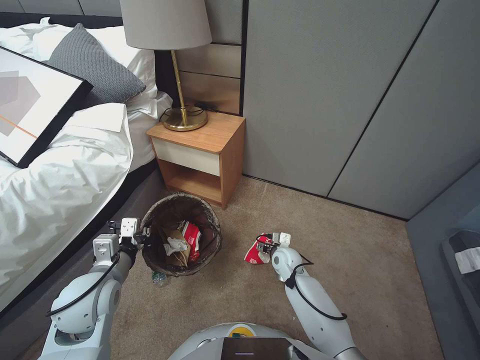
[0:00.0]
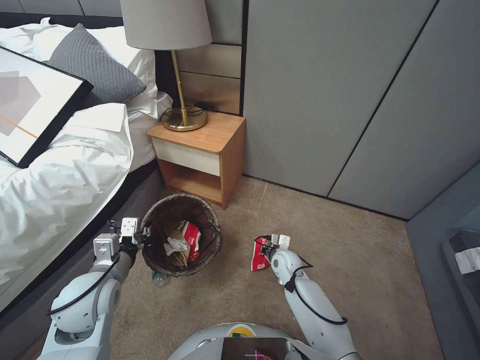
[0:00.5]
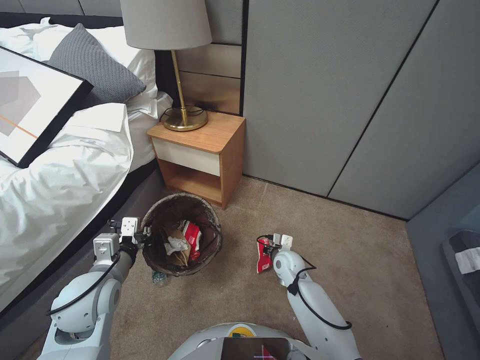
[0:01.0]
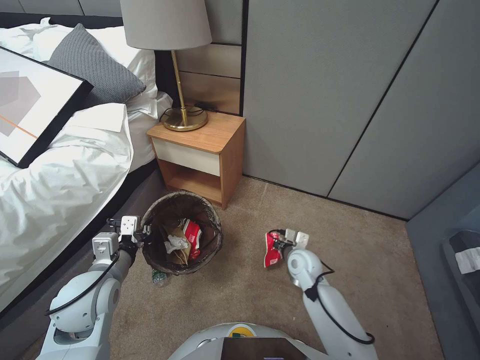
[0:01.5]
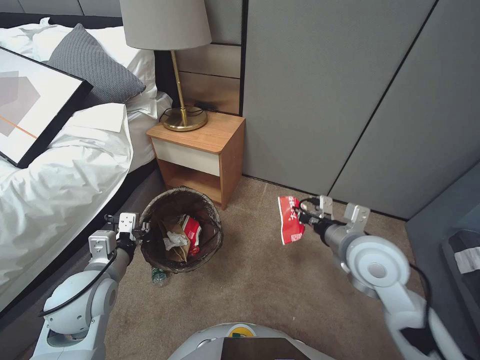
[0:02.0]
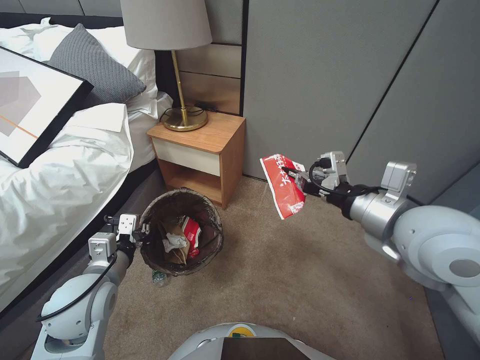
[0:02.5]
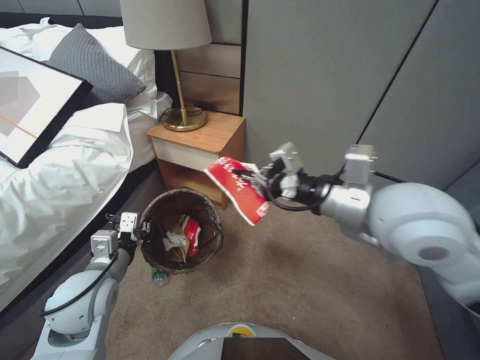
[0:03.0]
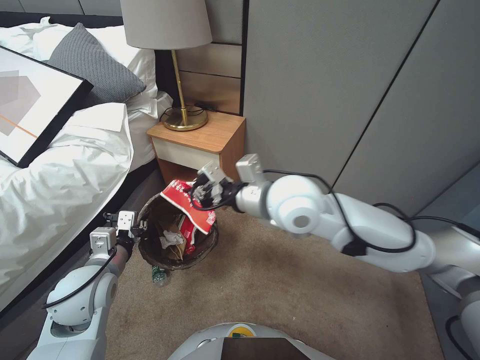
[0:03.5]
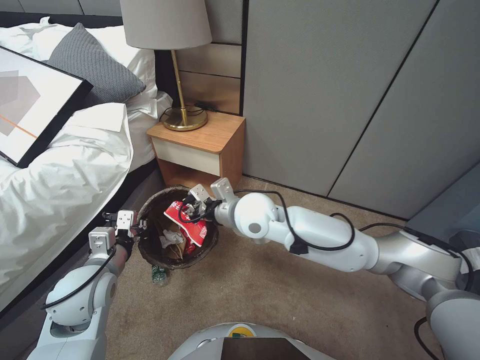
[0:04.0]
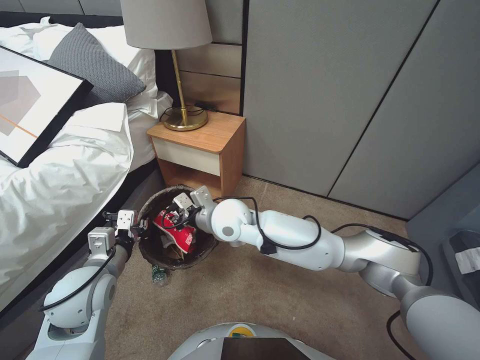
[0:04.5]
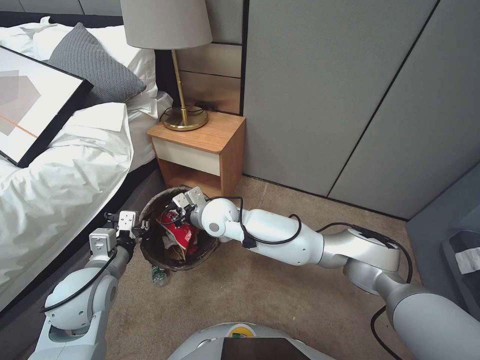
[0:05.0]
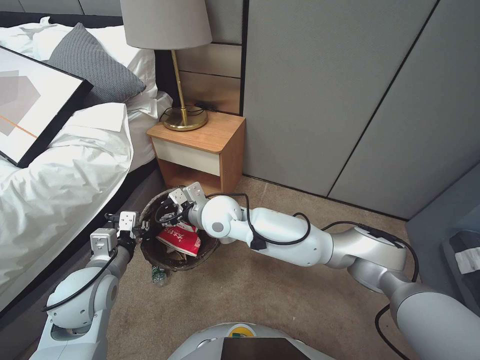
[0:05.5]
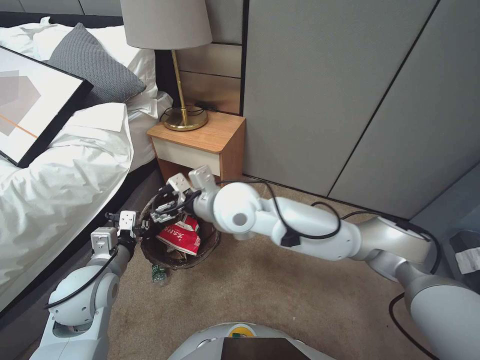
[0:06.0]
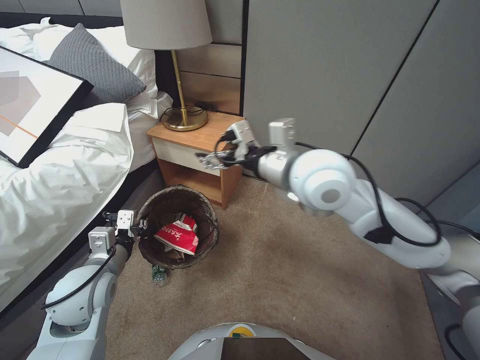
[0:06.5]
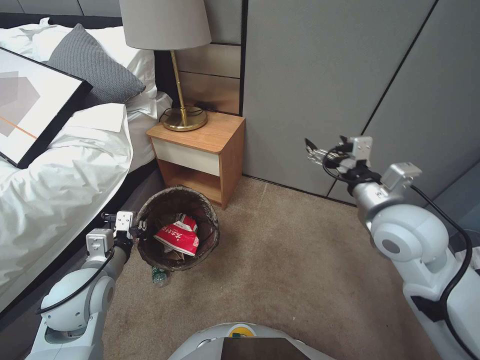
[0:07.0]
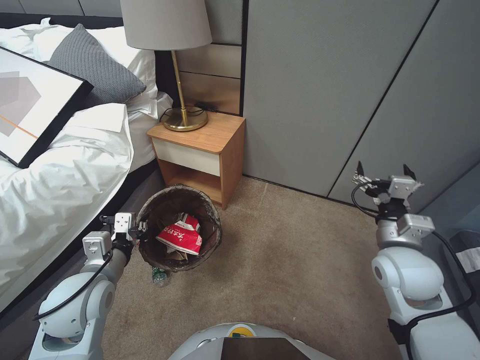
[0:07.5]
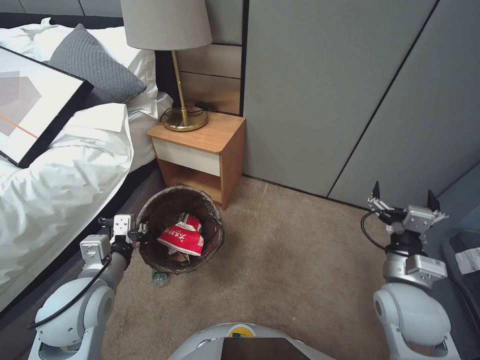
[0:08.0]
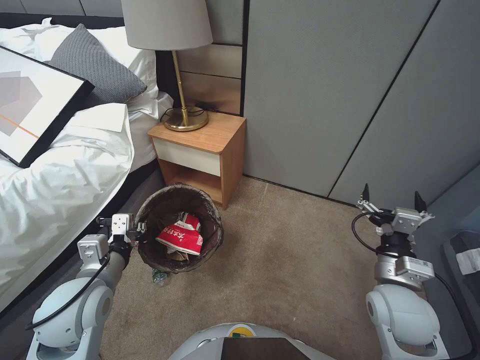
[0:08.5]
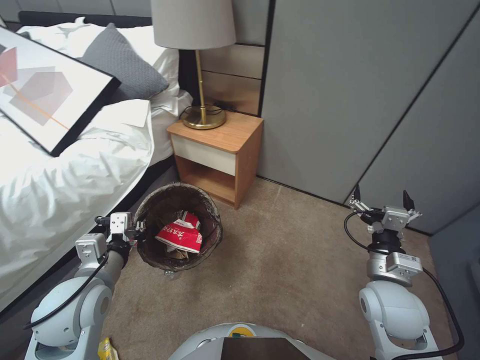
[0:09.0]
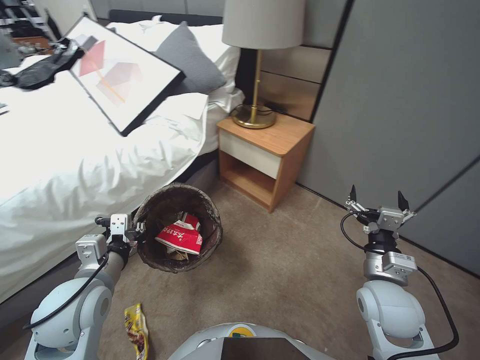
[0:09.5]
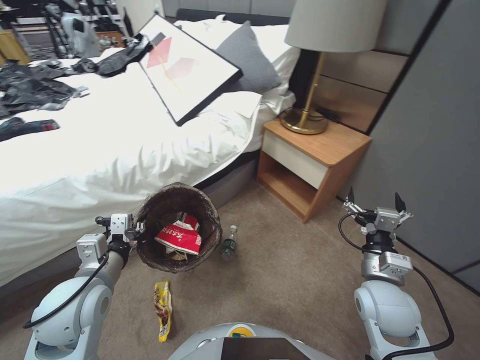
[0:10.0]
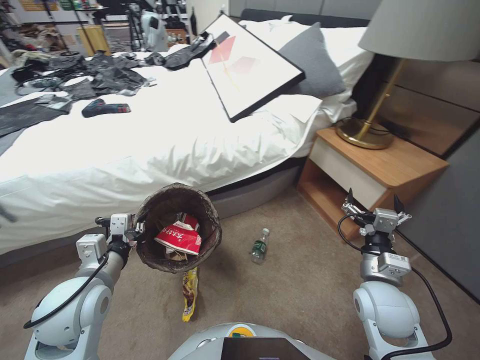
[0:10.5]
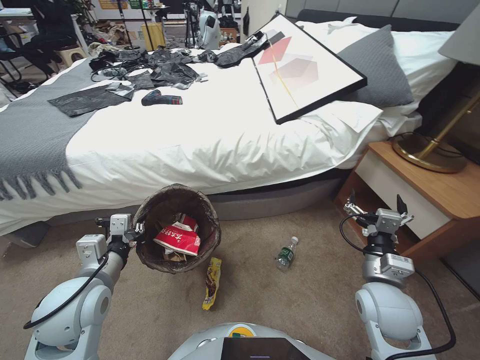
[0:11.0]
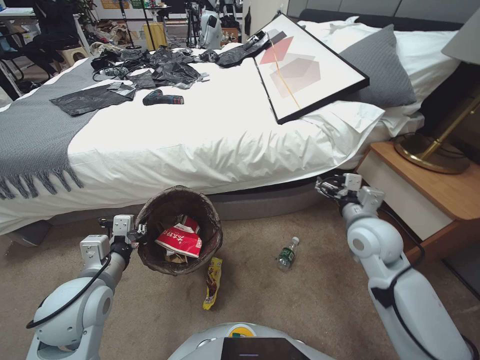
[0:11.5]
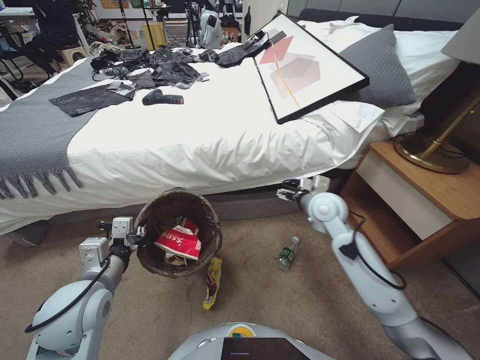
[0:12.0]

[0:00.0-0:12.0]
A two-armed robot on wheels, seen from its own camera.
Task of the whole recording: Pick up the trash bin, then pick up the garbage from the floor and place it into the trash bin.
0:00.0 to 0:02.0: The right gripper travels upward by about 25 cm, and closes up.
0:02.0 to 0:04.0: The right gripper is displaced to the left by roughly 20 cm.
0:04.0 to 0:06.0: The right gripper is displaced to the left by some 5 cm, reaches approximately 5 cm downward, then returns, and opens up.
0:06.0 to 0:08.0: The right gripper shifts about 35 cm to the right and backward.
0:10.0 to 0:12.0: The right gripper moves forward, approximately 20 cm.

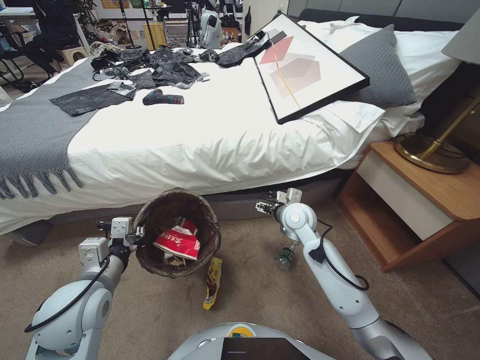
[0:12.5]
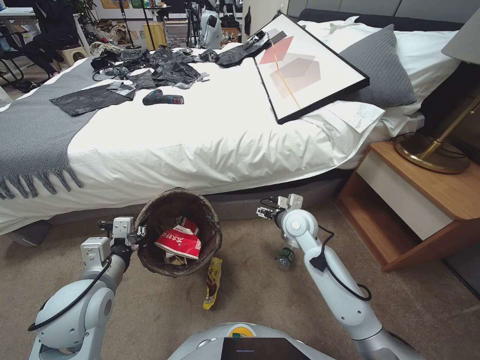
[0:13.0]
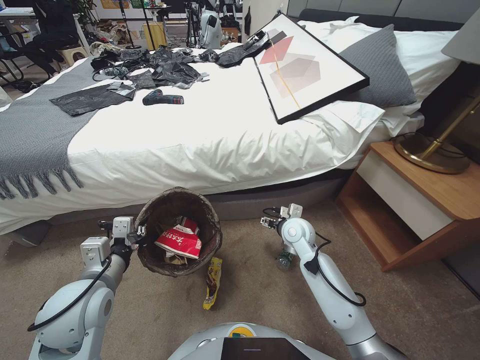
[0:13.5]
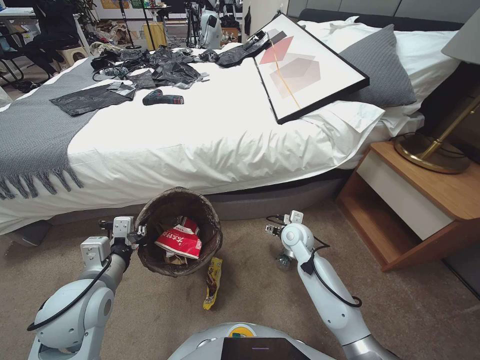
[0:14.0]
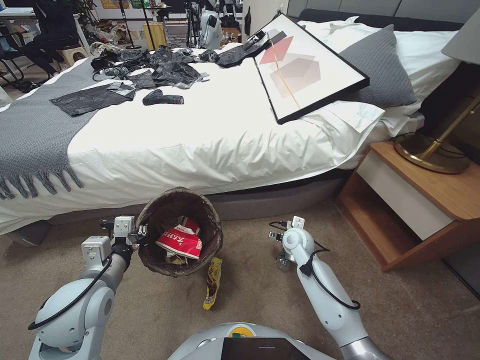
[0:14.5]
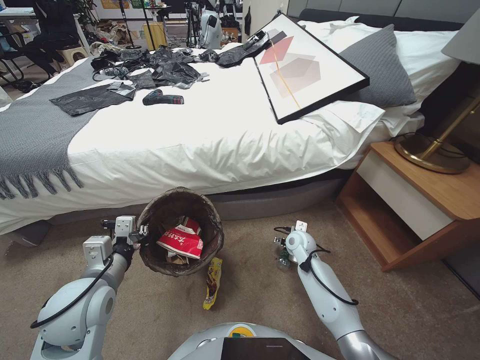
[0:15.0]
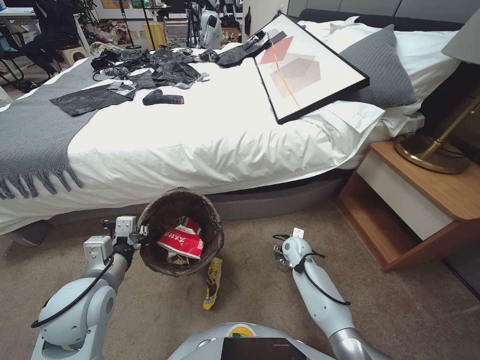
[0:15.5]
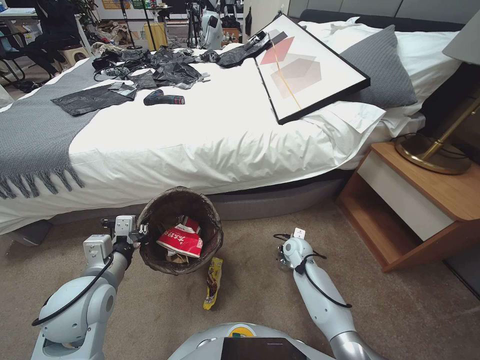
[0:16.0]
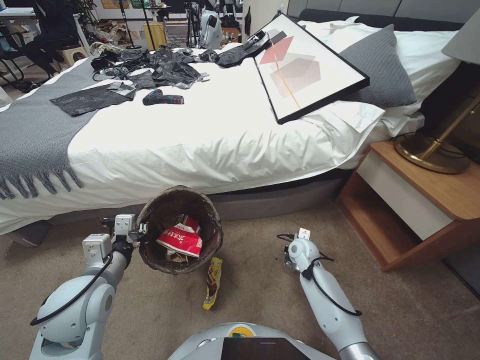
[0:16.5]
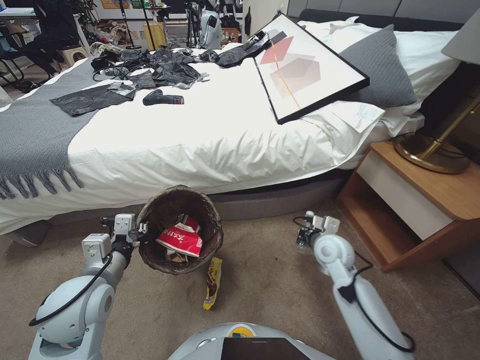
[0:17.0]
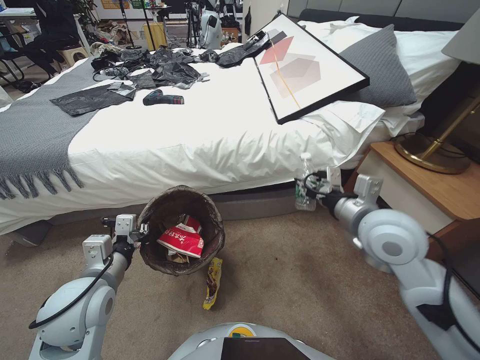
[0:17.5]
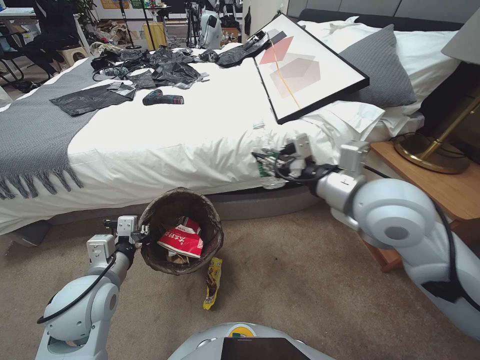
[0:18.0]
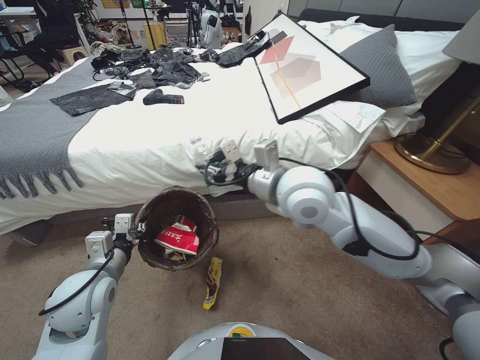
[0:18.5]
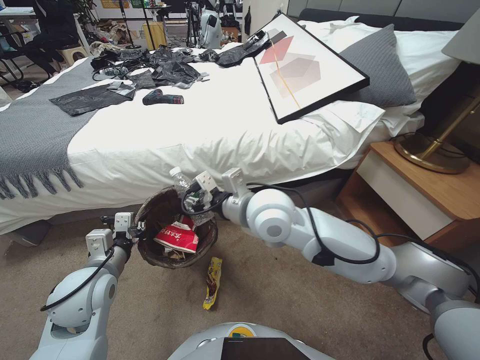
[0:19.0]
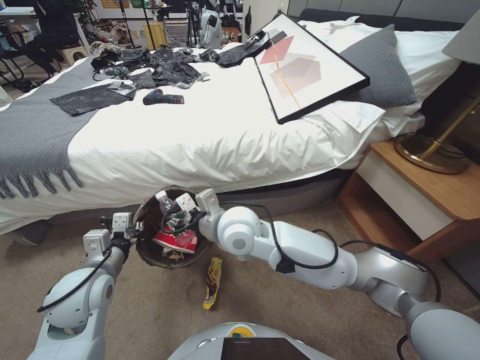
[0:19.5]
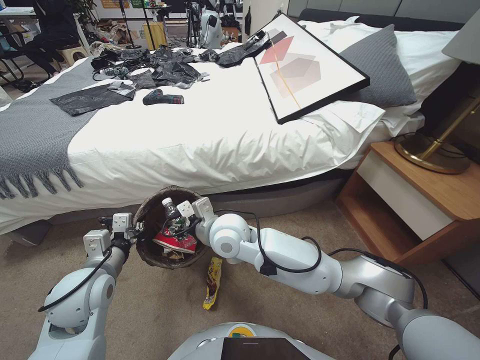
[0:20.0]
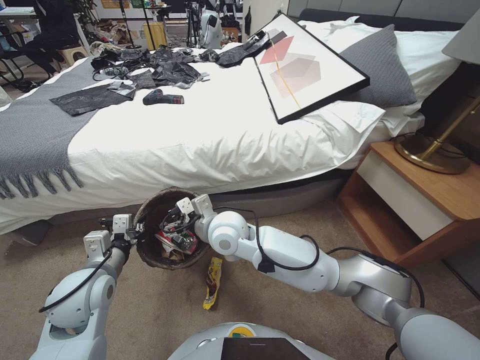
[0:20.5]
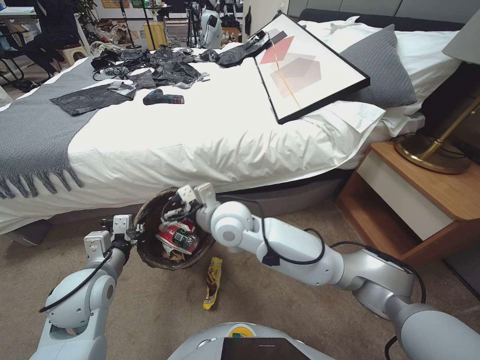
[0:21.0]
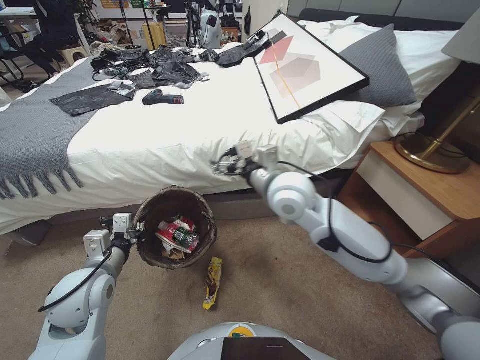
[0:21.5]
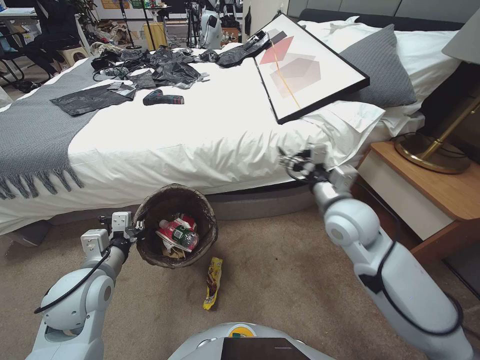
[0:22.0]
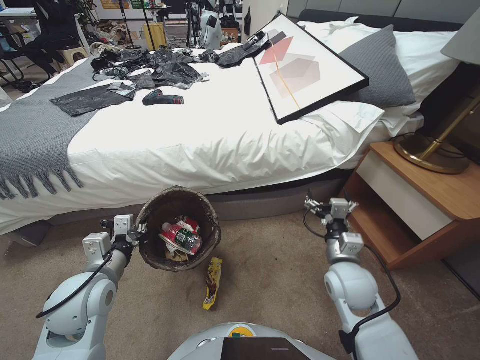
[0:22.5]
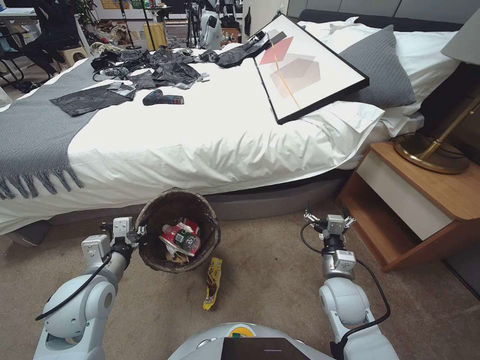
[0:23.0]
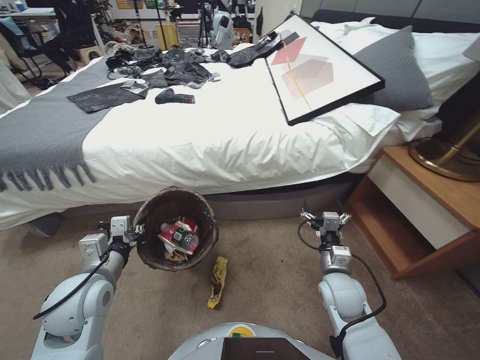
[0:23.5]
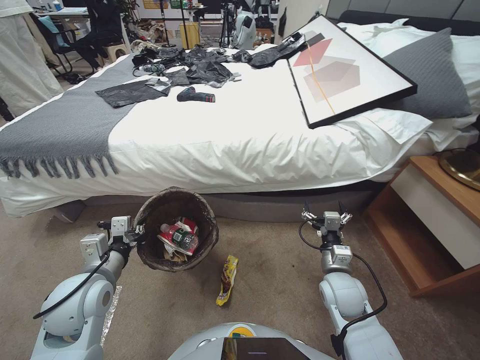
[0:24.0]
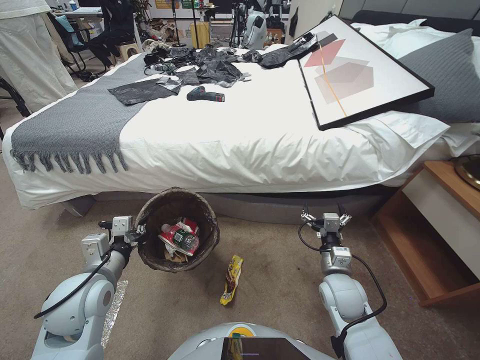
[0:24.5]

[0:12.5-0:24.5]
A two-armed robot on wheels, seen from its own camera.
Task of the whole recording: Pick up the trash bin, then pick up the garbage from the floor and place it into the trash bin.
0:12.5 to 0:14.5: The right gripper travels downward by some 10 cm.
0:14.5 to 0:16.5: The right gripper shifts roughly 5 cm downward, and closes its fingers.
0:16.5 to 0:18.5: The right gripper goes roughly 40 cm upward.
0:18.5 to 0:20.5: The right gripper is displaced downward and to the left by approximately 20 cm, and opens.
0:20.5 to 0:22.5: The right gripper moves to the right, approximately 30 cm.
0:22.5 to 0:24.5: The right gripper moves downward, roughly 10 cm.

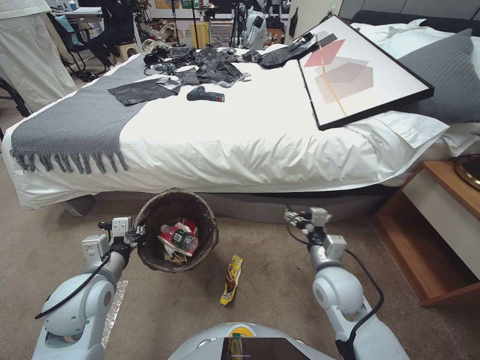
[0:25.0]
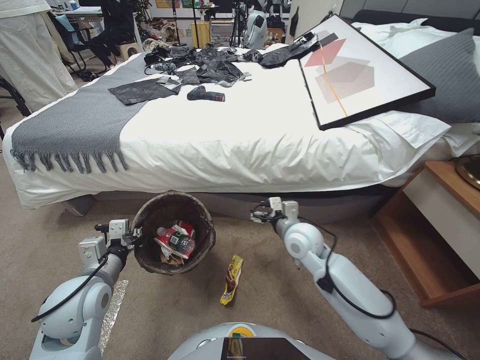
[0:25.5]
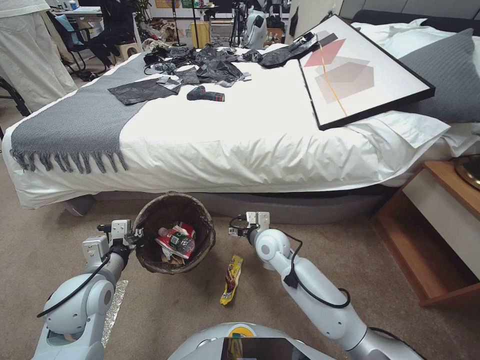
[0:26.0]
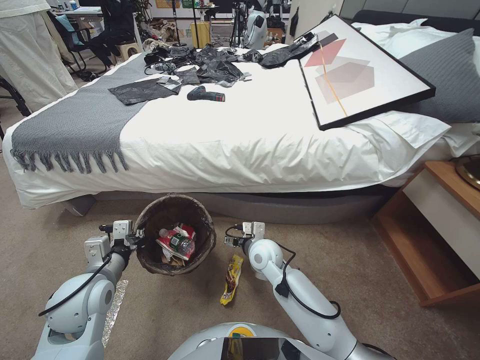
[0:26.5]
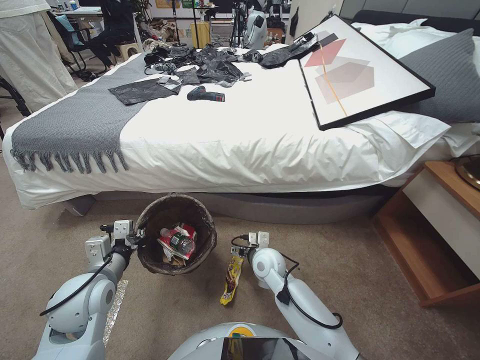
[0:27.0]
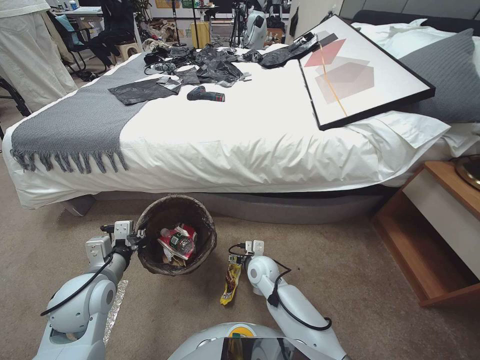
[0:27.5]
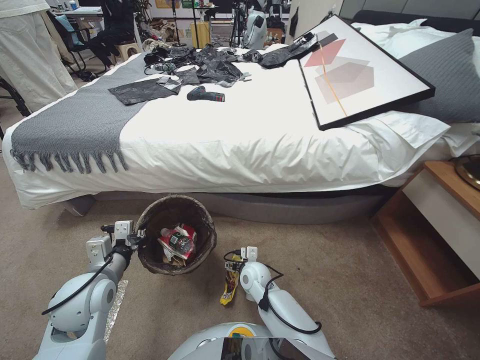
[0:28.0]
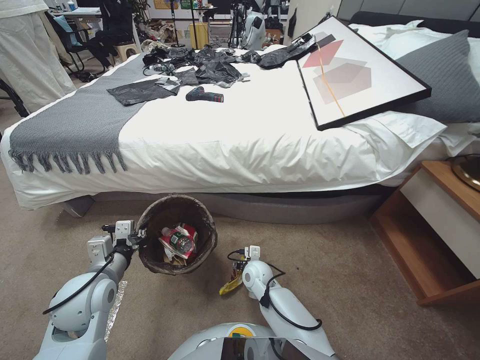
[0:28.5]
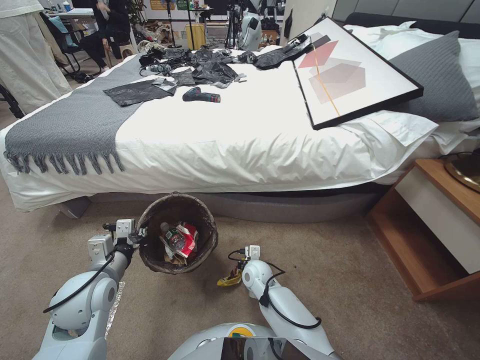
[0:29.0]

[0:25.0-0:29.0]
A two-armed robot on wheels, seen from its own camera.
Task of the whole recording: Pick up the trash bin, then pick up the garbage from the floor and place it into the trash bin.
0:25.0 to 0:27.0: The right gripper shifts about 20 cm to the left and forward.
0:27.0 to 0:29.0: The right gripper heads downward, covering approximately 10 cm, and closes up.
